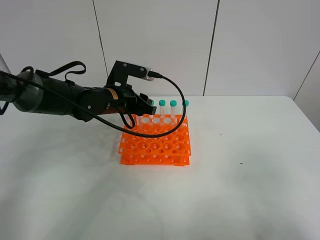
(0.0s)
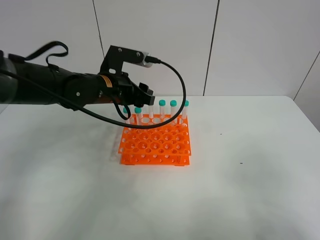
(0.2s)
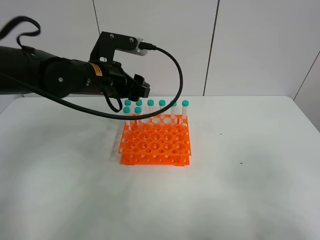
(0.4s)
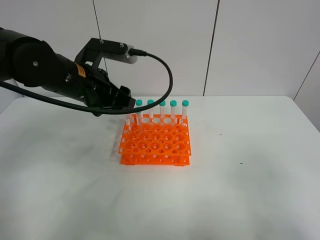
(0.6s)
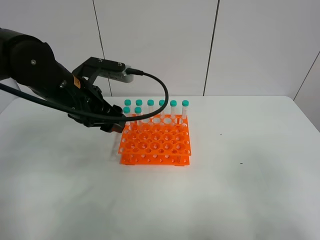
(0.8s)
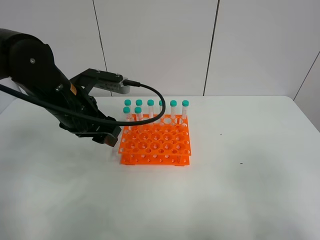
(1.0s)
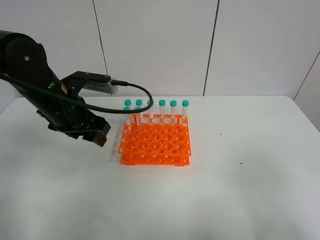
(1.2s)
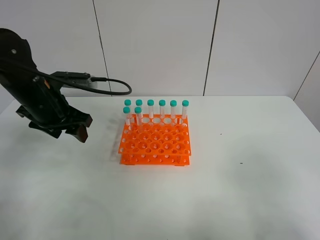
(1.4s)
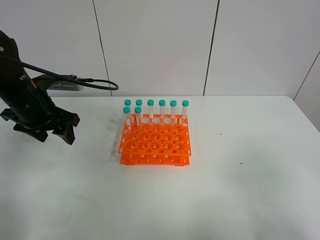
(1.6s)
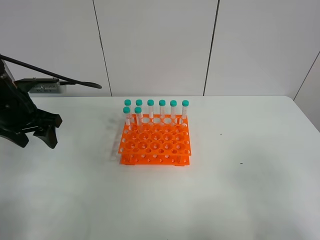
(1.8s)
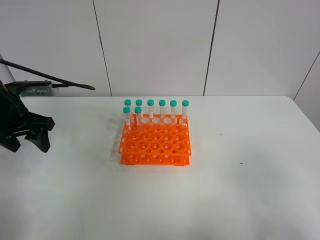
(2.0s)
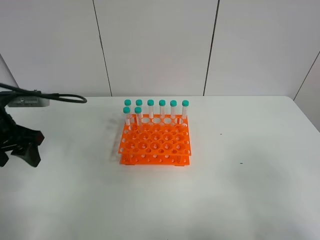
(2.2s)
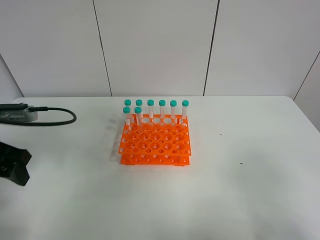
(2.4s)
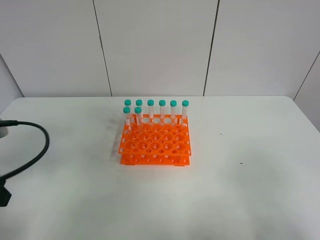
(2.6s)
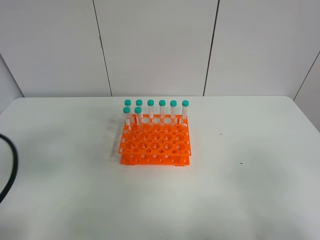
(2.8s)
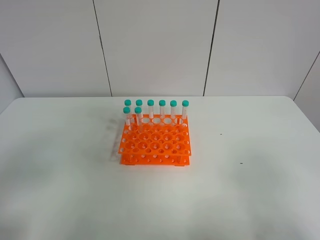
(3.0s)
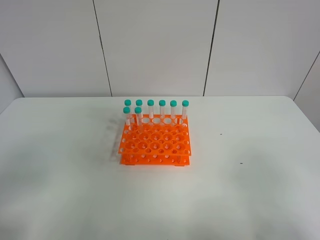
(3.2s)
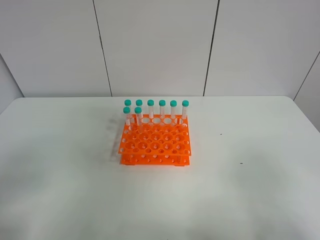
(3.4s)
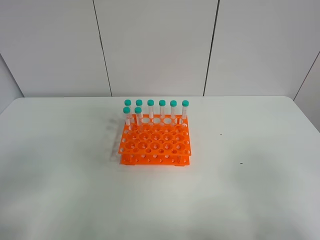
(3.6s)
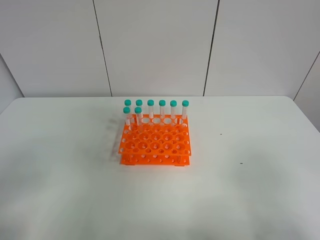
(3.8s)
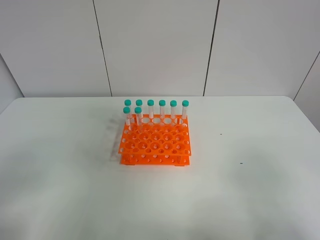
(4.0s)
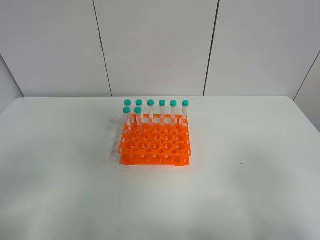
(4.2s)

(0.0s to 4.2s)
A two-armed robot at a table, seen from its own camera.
Task of the whole recording: Put the test tube on the table back onto the test tube rack.
0.0s - 1.4s: The left gripper travels to the left and backward by roughly 15 cm.
1.4s - 2.8s: The left gripper is displaced backward by about 20 cm.
2.8s - 4.2s: The left gripper heads backward, covering roughly 10 cm.

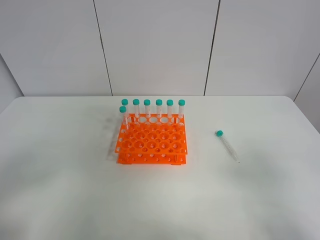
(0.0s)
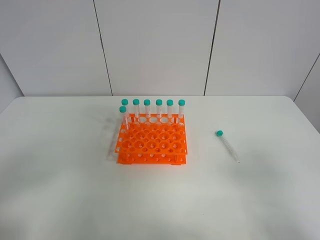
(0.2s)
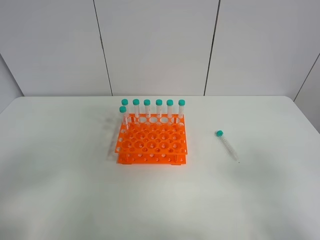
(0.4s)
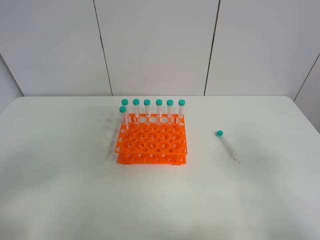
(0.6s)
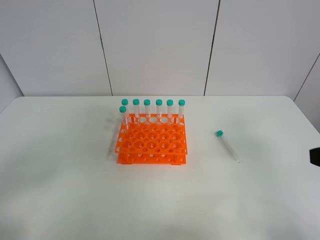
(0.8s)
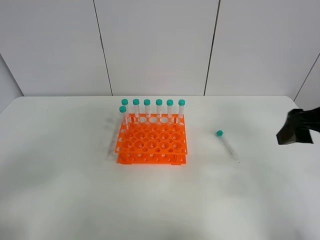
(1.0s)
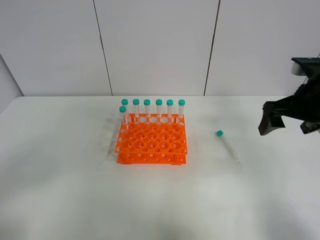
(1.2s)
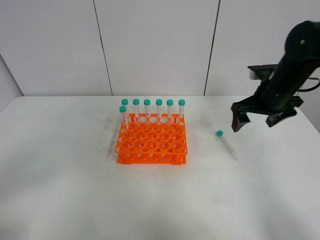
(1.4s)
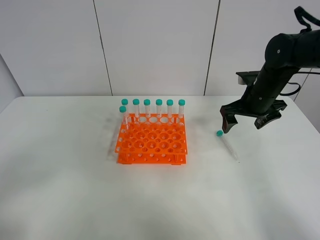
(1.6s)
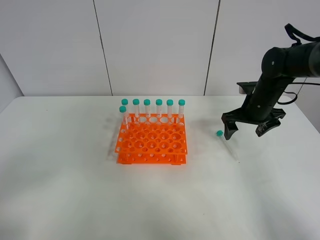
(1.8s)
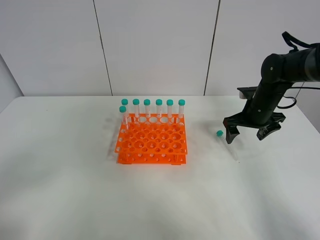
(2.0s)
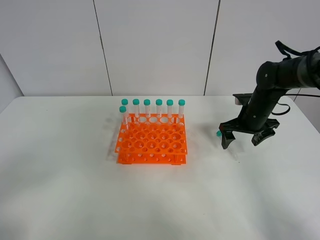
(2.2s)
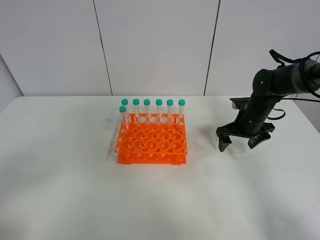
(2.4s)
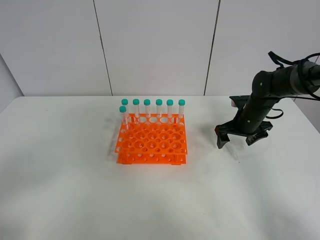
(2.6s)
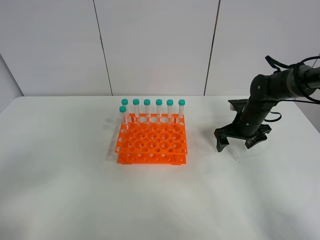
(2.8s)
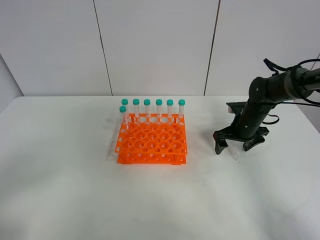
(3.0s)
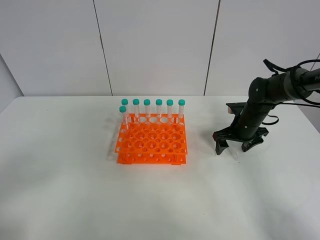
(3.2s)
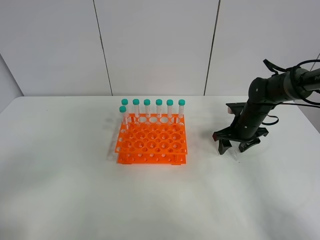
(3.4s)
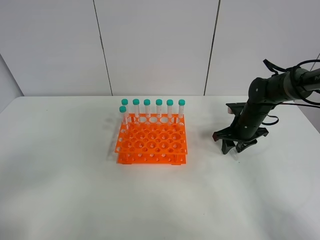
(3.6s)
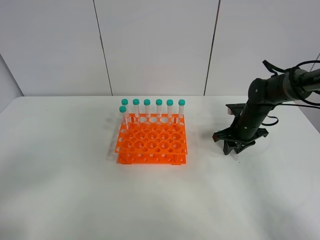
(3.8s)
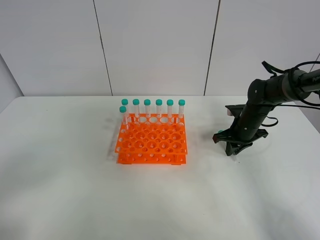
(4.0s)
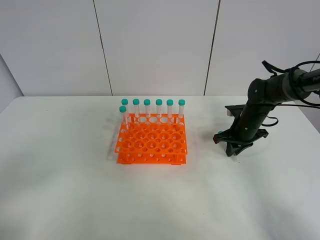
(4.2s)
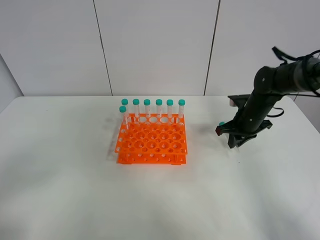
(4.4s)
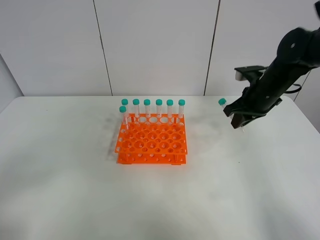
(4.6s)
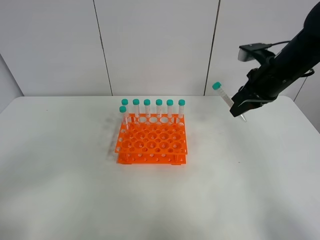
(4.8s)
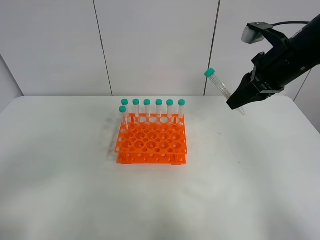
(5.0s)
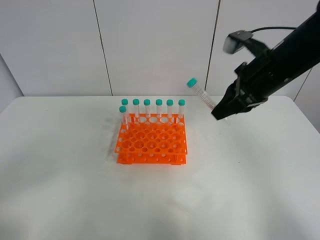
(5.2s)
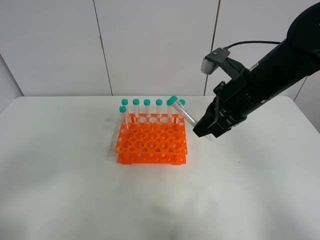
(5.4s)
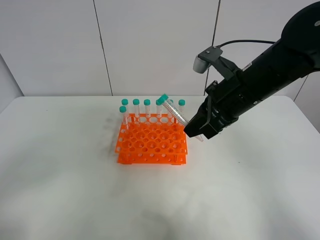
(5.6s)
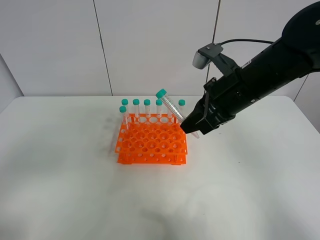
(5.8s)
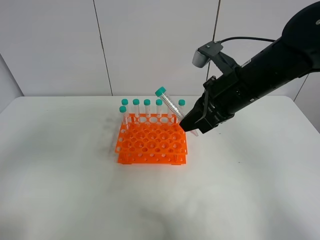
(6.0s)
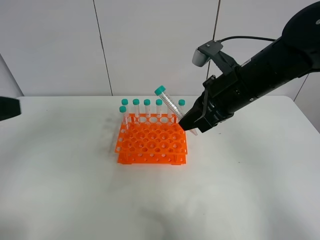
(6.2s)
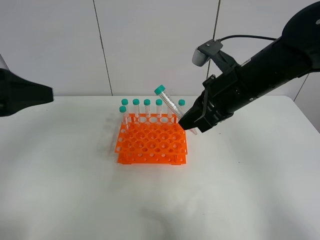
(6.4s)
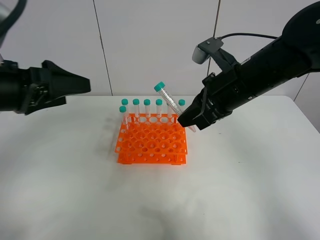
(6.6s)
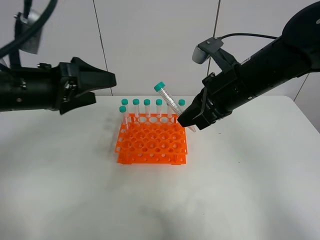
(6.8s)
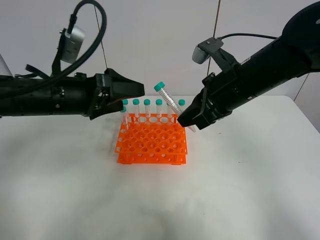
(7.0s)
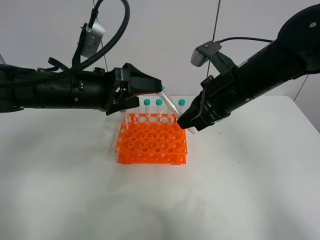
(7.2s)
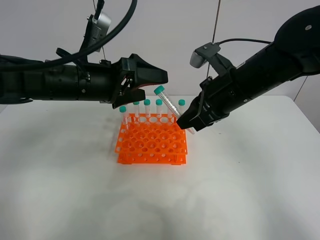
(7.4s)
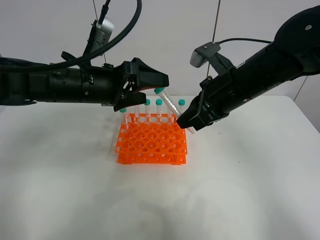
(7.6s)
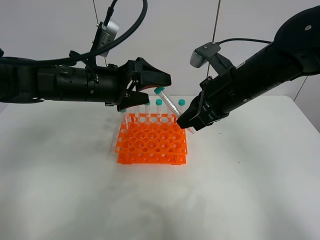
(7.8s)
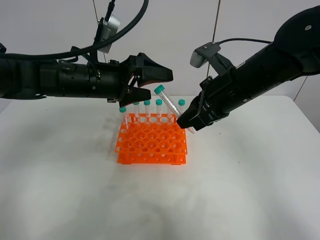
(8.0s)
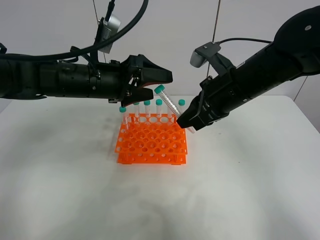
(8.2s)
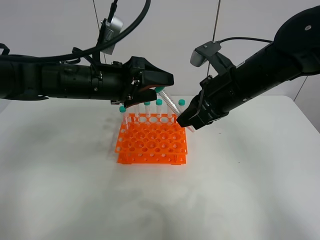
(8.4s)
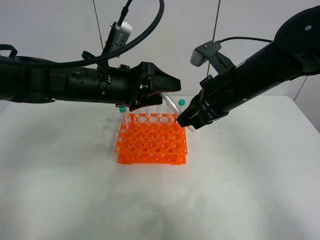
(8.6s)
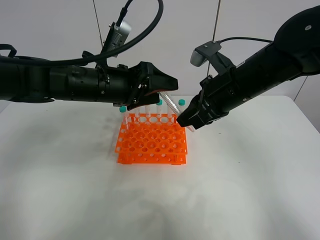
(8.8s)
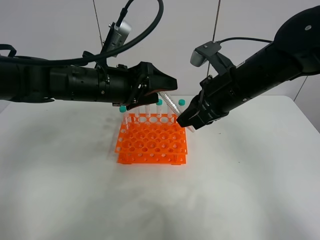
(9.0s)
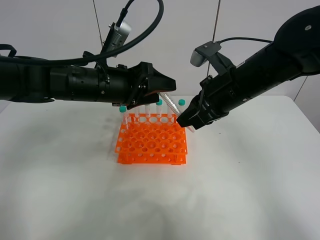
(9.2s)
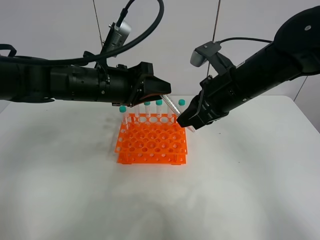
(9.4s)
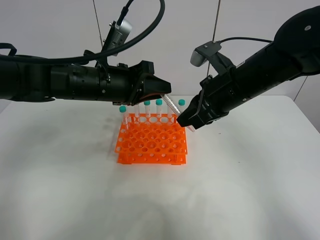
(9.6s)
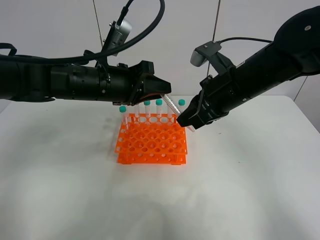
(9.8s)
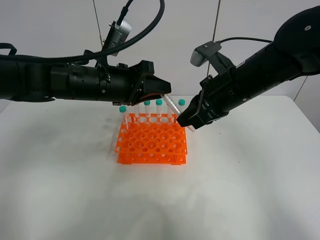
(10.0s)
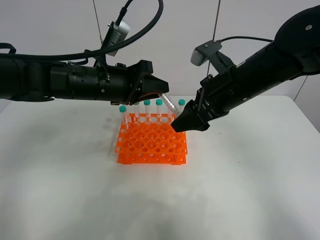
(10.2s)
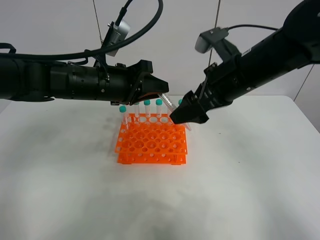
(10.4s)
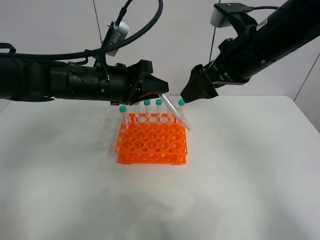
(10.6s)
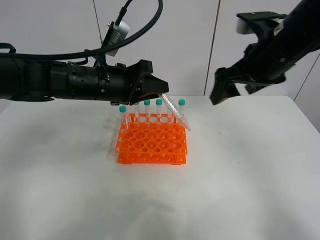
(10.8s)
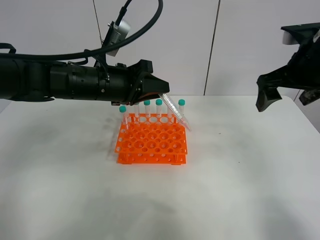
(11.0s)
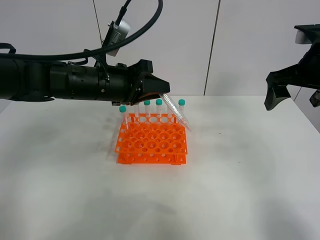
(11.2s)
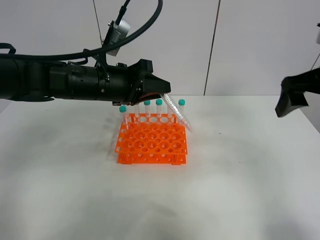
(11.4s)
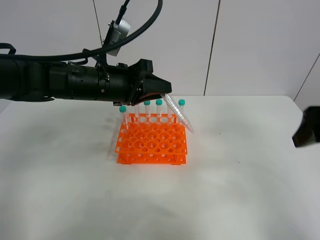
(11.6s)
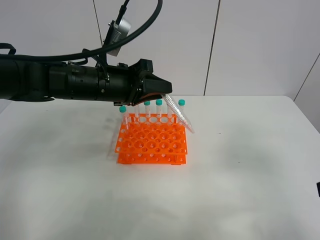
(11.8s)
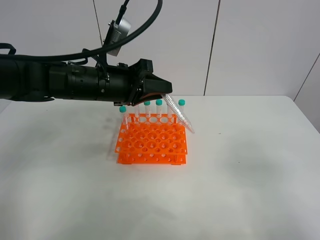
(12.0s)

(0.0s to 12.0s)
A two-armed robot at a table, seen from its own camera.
Task of the whole recording: Put the test tube on the table back onto the test tube rack.
Step, 0.0s - 4.6s: Pick up the test tube with the right gripper.
Step, 4.8s - 10.6s: Move the test tube from the right gripper to the left gripper.
0.0s - 1.6s: The right gripper is displaced forward by approximately 40 cm.
1.6s - 3.0s: The right gripper goes some 10 cm downward.
3.0s - 4.4s: The right gripper closes.
4.4s - 6.0s: The left gripper moves upward and forward, roughly 10 cm, while the right gripper shifts roughly 20 cm upward, backward and to the left.
6.0s - 7.6s: The left gripper goes roughly 30 cm forward and to the right.
7.6s - 9.0s: The grippers make only small movements.
9.0s - 10.4s: The right gripper opens up. The left gripper closes its fingers.
10.4s - 12.0s: The right gripper shifts roughly 30 cm backward and to the right.

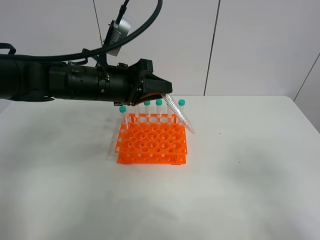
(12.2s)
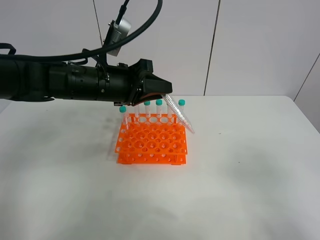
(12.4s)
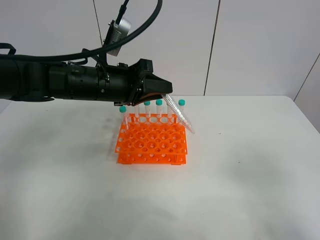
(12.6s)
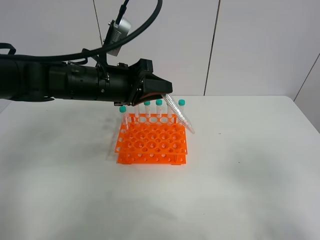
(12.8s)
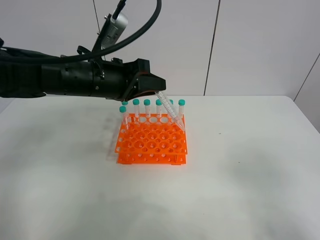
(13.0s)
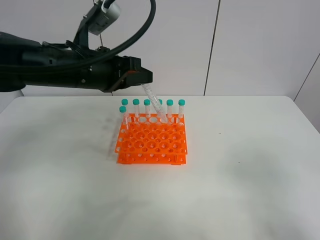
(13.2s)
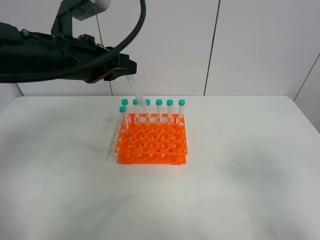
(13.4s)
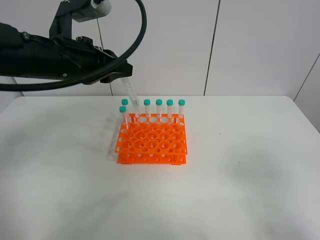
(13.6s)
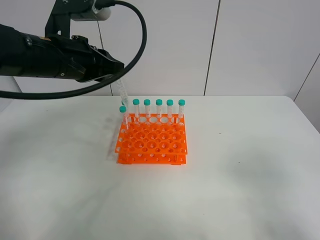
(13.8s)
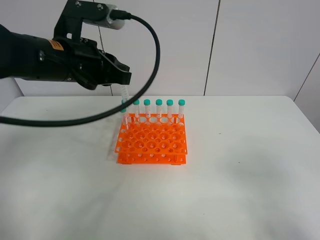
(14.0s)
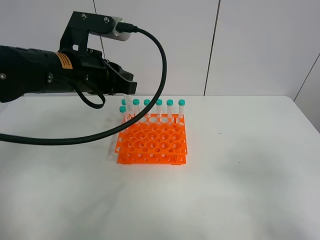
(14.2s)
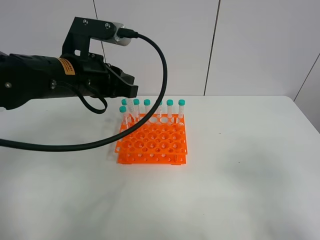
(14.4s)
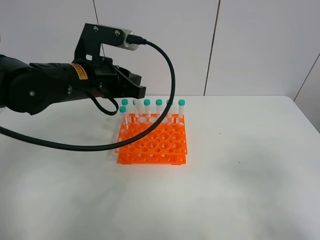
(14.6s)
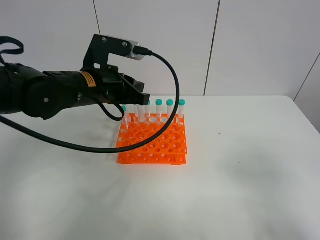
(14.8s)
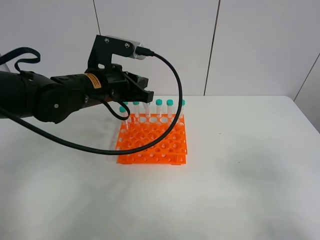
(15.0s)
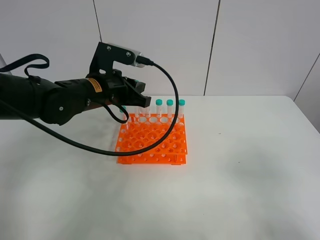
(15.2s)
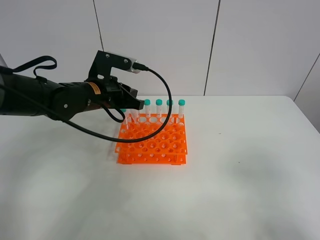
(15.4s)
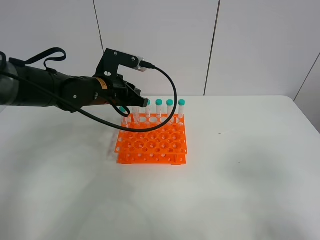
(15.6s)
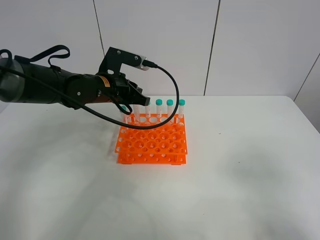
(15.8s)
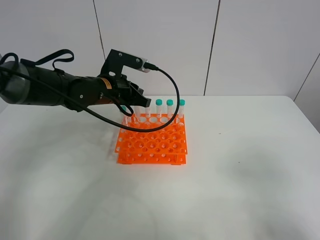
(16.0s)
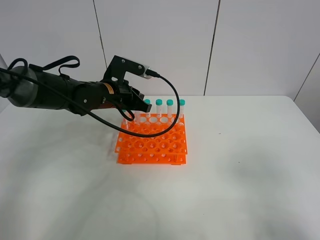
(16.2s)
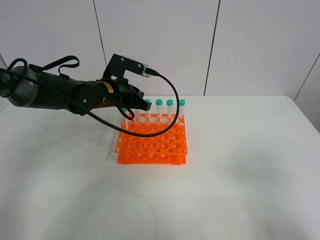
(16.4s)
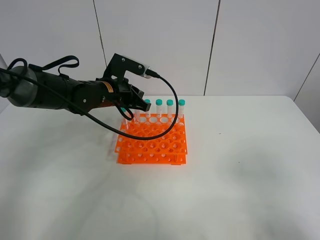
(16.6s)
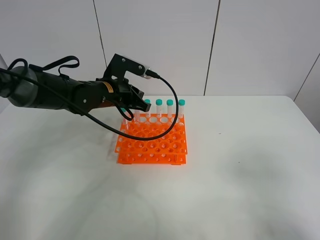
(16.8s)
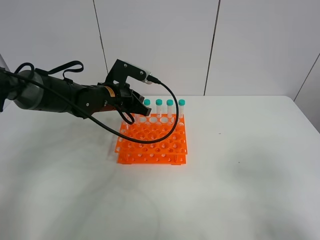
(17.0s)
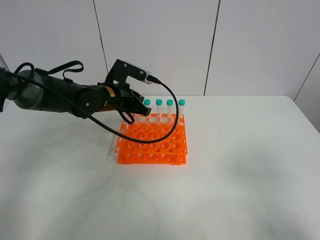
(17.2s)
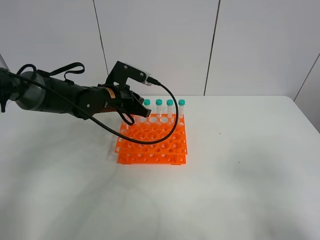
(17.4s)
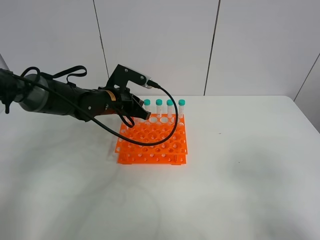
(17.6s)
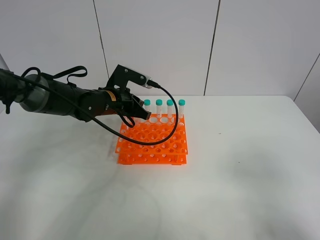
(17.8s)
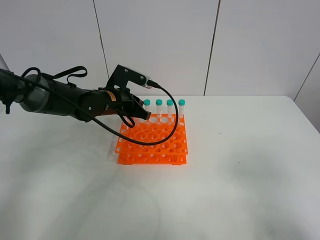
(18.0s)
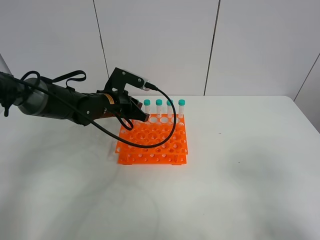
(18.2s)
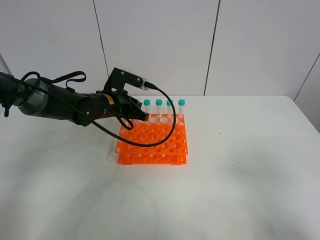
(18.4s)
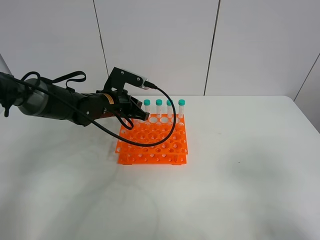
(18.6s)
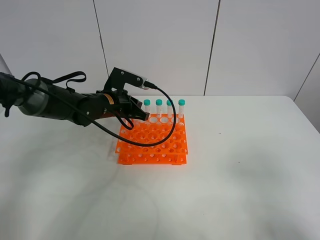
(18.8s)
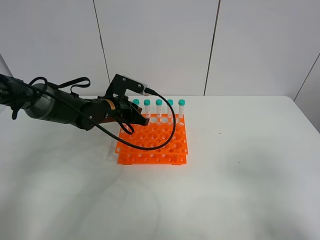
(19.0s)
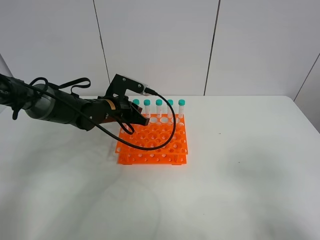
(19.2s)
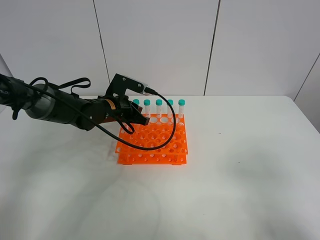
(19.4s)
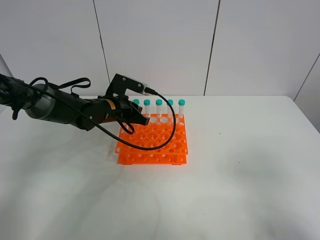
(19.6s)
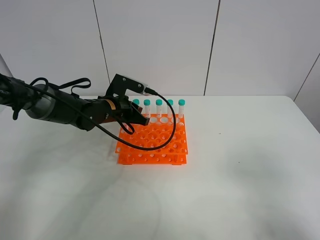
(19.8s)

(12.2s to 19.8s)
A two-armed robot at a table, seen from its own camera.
Task of the whole recording: Put the test tube on the table back onto the test tube rack.
12.2s - 13.8s: The left gripper moves upward, some 5 cm.
13.8s - 15.2s: The left gripper moves downward, approximately 10 cm.
15.2s - 16.8s: The left gripper is displaced forward by about 5 cm.
16.8s - 19.8s: There are only small adjustments of the grippers.
